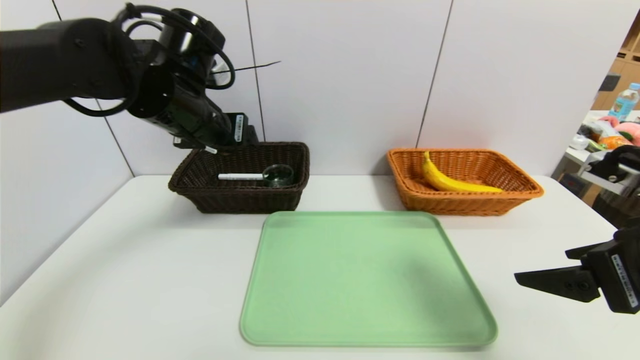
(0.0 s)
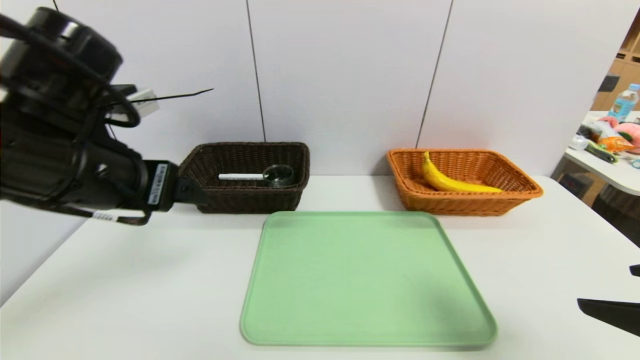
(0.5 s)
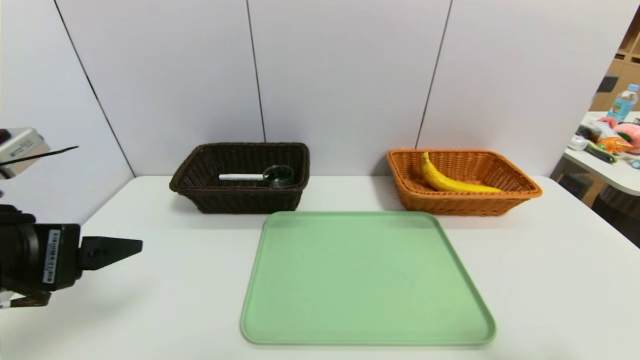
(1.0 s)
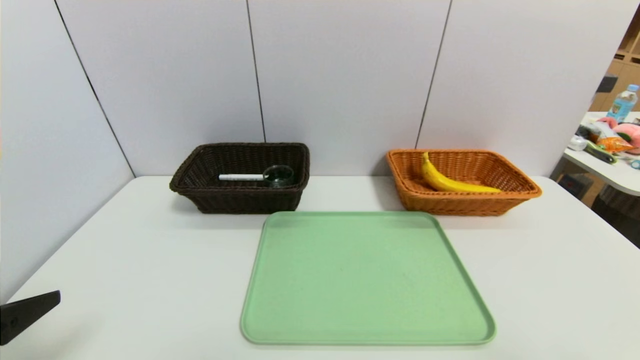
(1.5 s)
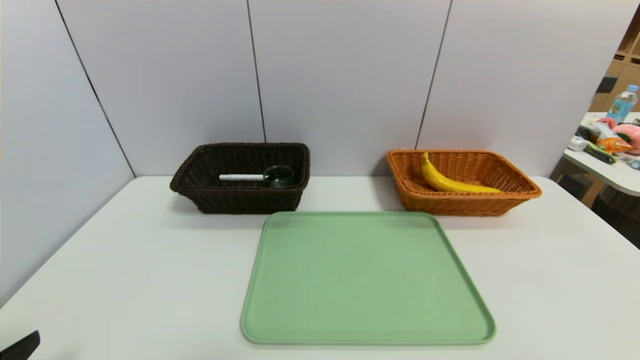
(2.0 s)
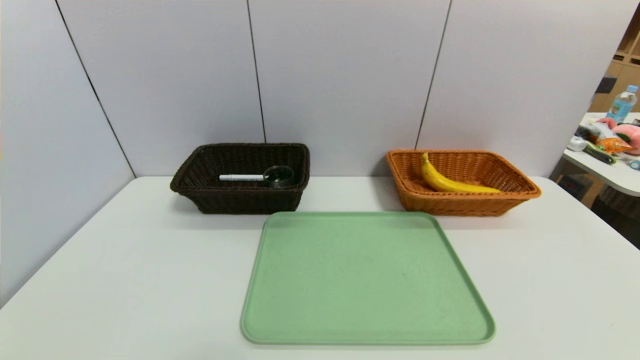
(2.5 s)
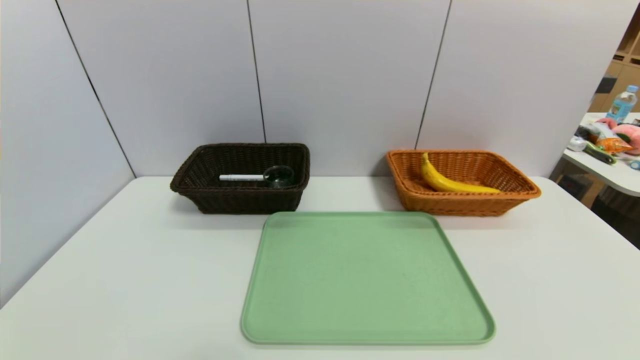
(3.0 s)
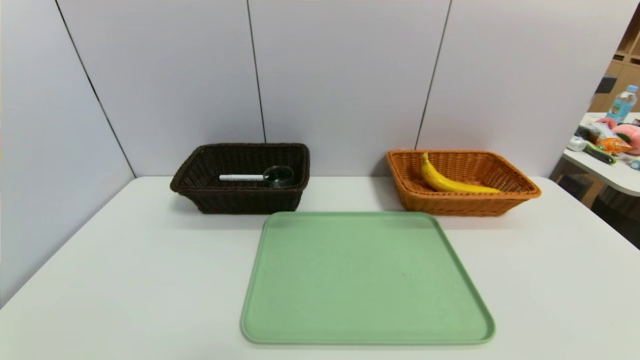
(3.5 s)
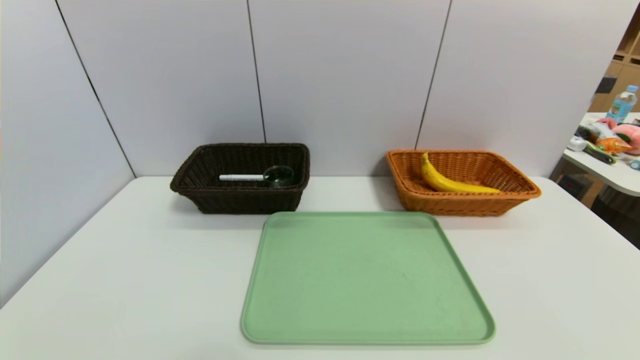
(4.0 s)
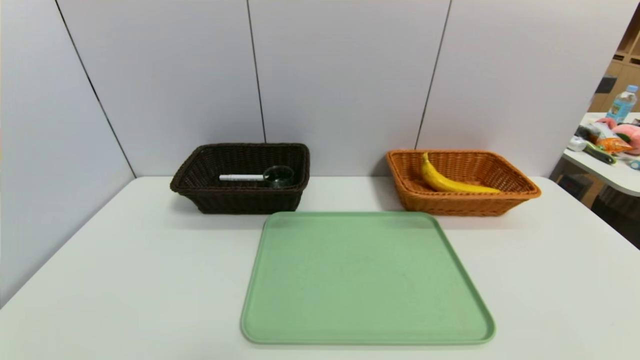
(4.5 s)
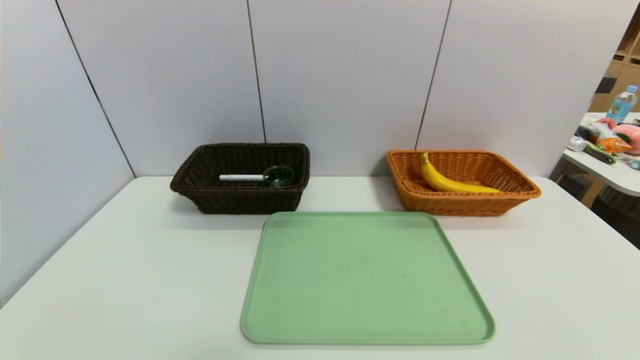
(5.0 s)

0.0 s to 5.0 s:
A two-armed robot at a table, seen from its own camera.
Task of the whole recording: place the food in the right basket with the right gripper, and place the non food items in the left basket with the left gripper.
0.0 to 2.5 s: The left gripper moves backward, downward and to the left, approximately 40 cm, while the right gripper moves backward, roughly 20 cm.

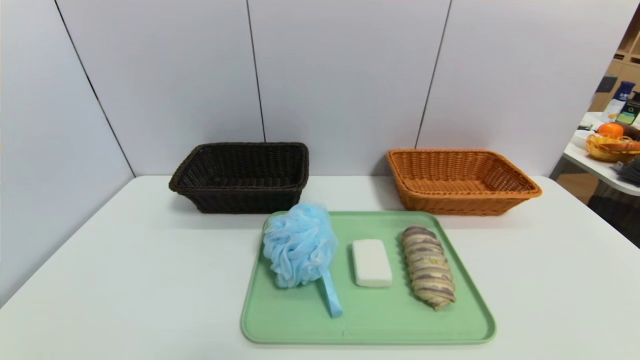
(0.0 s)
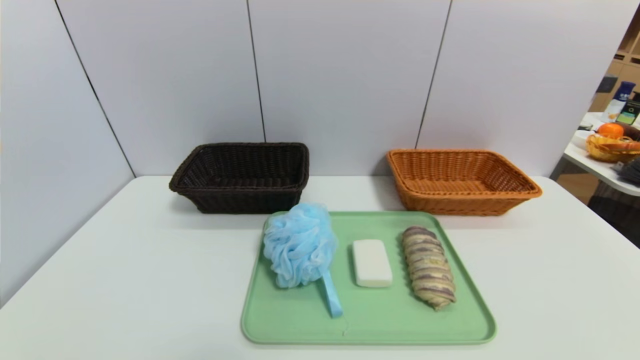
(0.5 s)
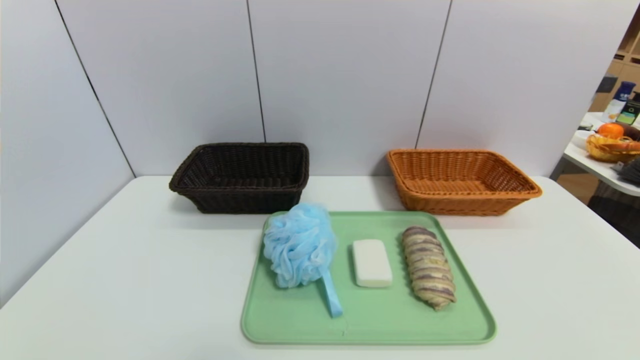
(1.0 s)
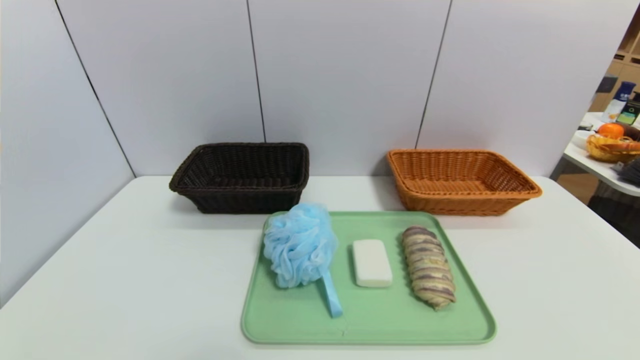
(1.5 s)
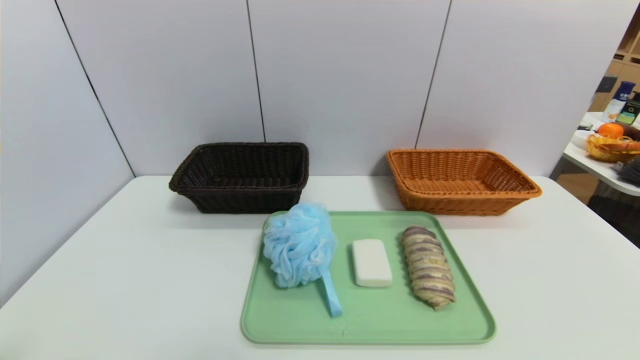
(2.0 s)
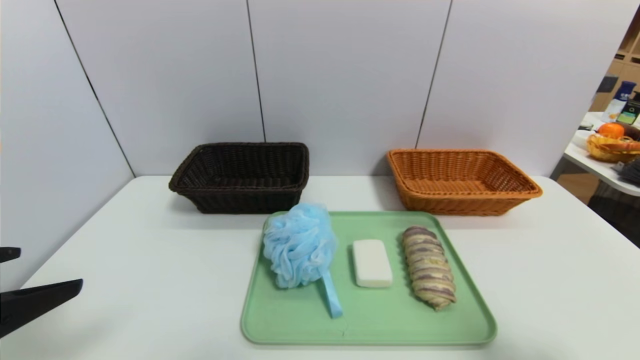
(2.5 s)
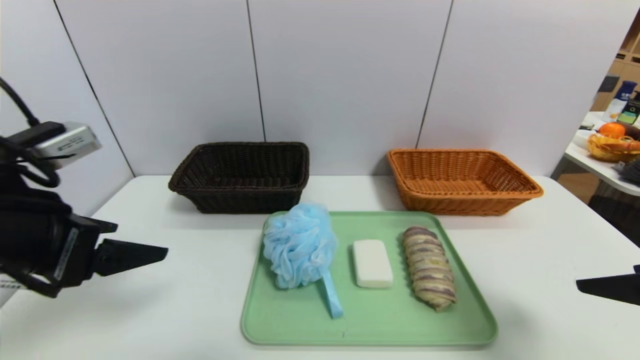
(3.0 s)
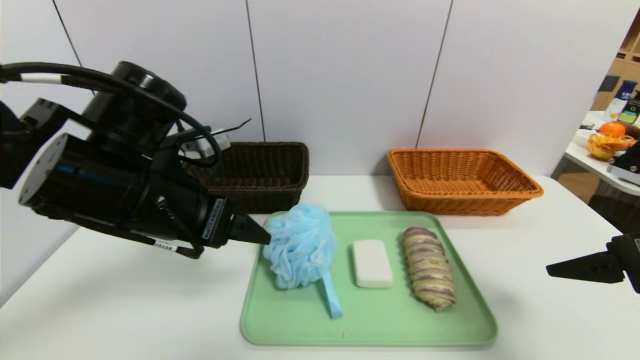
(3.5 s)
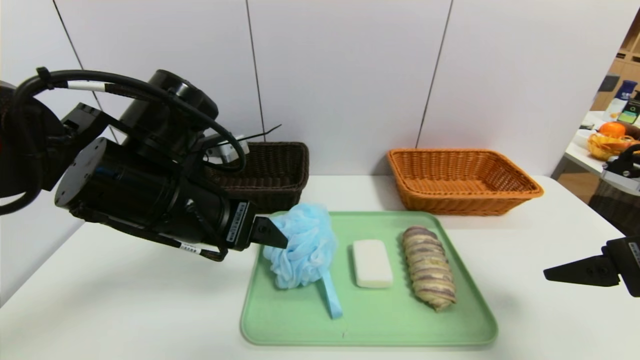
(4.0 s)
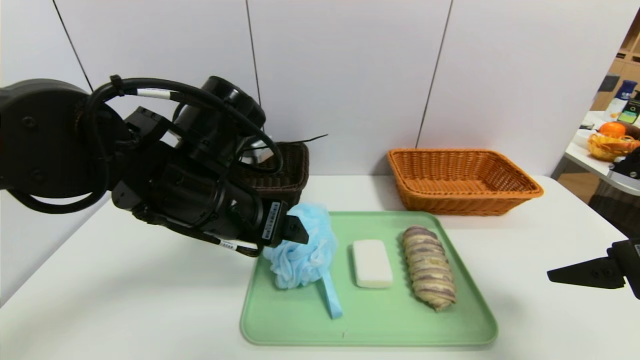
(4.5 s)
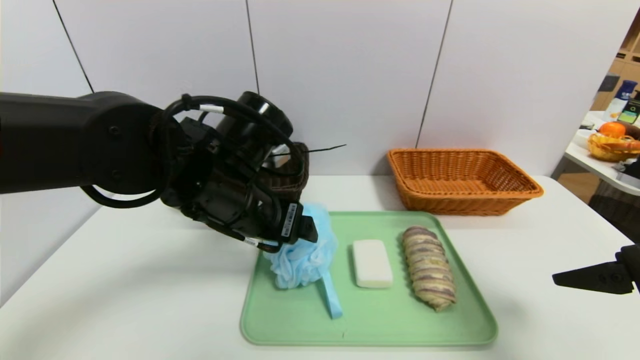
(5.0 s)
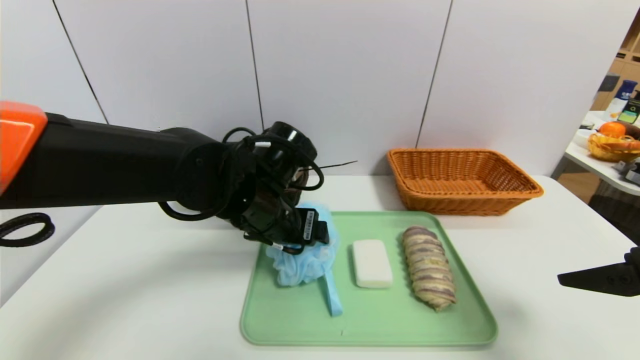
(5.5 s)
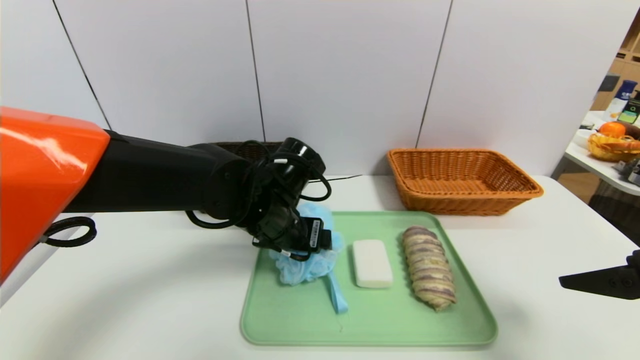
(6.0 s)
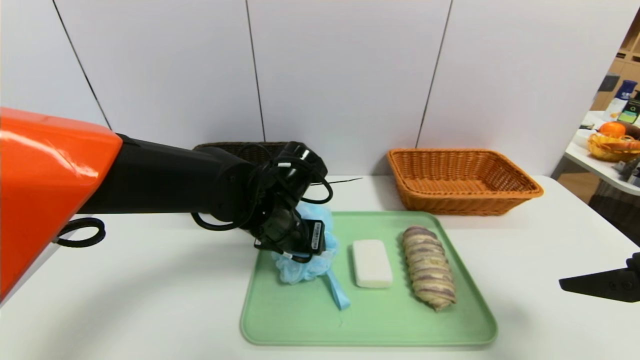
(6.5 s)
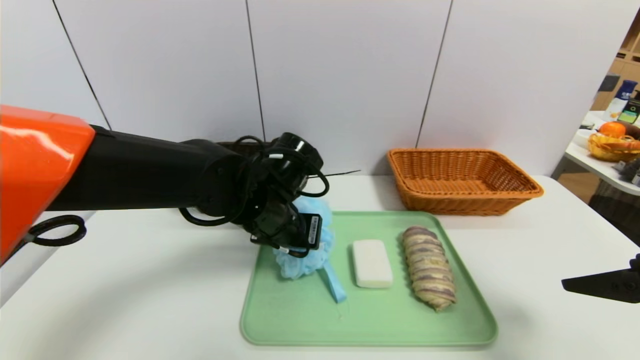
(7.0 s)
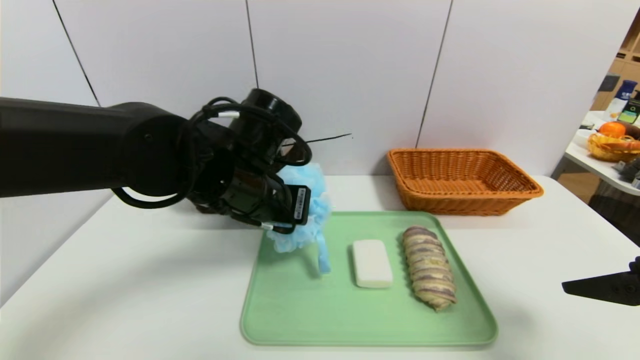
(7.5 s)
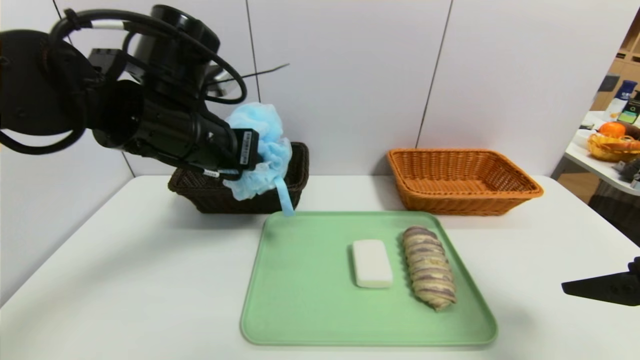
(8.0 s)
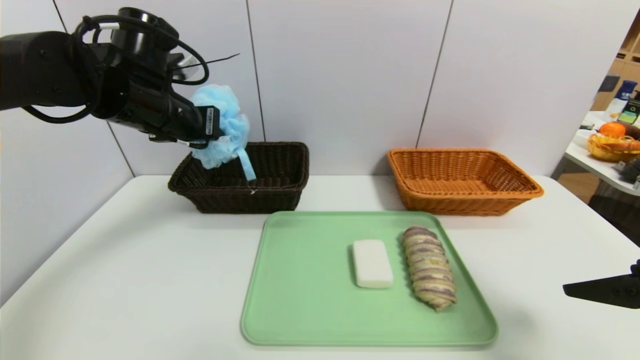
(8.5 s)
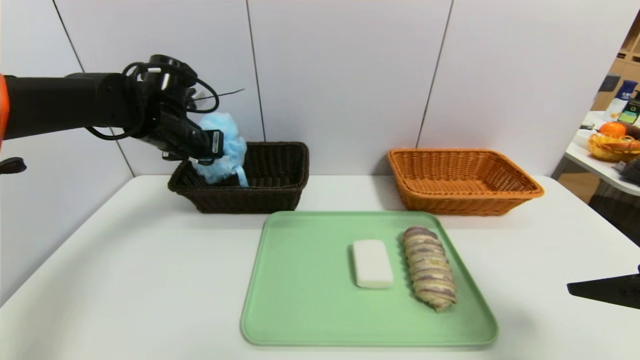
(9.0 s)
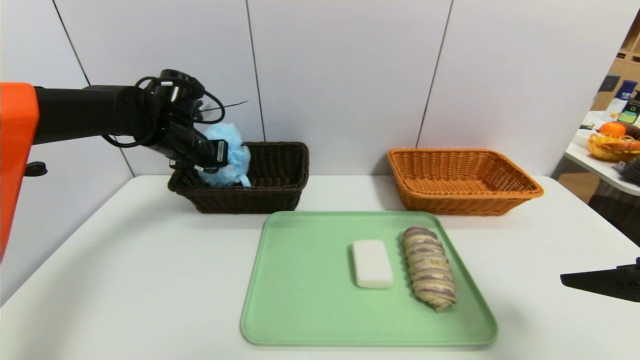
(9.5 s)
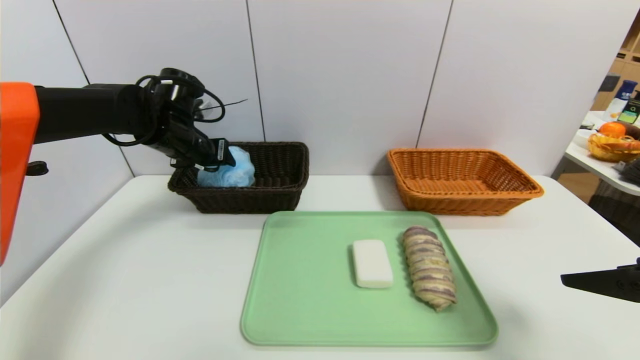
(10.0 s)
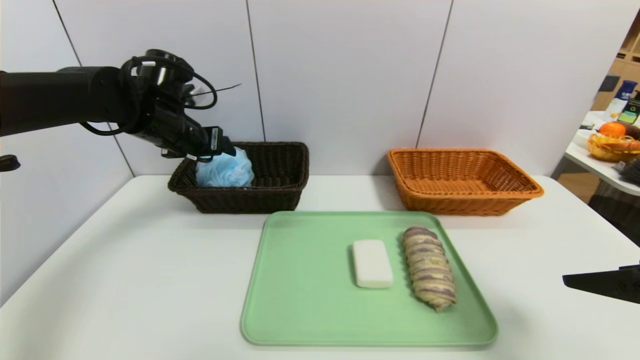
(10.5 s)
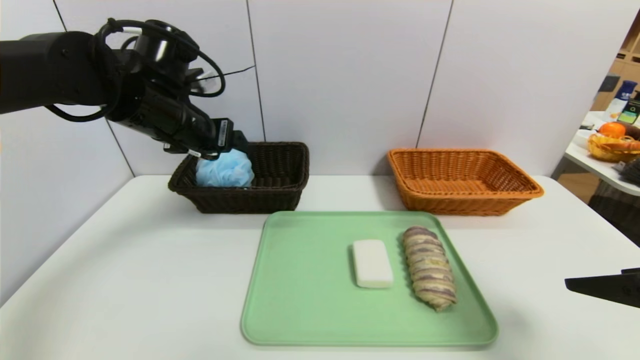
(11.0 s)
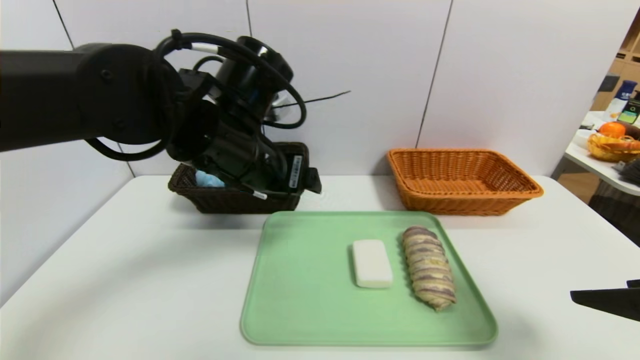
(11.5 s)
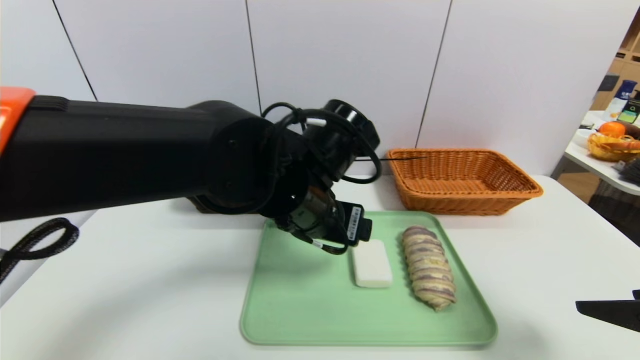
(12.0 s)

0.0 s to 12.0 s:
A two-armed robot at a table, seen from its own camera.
Task of the whole recording: place the food in the right basket with the right gripper, and place the non food items in the left basket with the left gripper.
Step, 0.0 to 10.5 s: Grasp the shower sphere and put it in the left basket.
2.0 to 4.0 s: The left gripper shifts roughly 30 cm forward and to the right; the right gripper moves forward, roughly 20 cm.
4.0 to 6.0 s: The left gripper travels to the right, downward and forward by about 15 cm.
6.0 to 8.0 s: The left gripper shifts roughly 15 cm upward and to the left, and closes up.
8.0 to 10.0 s: The left gripper goes roughly 15 cm forward, to the left and downward, and opens up.
10.0 to 12.0 s: The left gripper is displaced to the right and backward by about 25 cm, and opens.

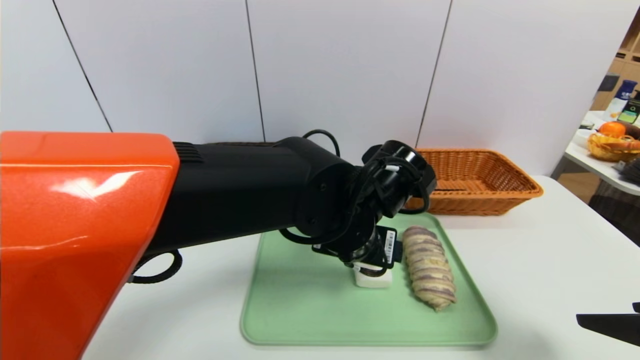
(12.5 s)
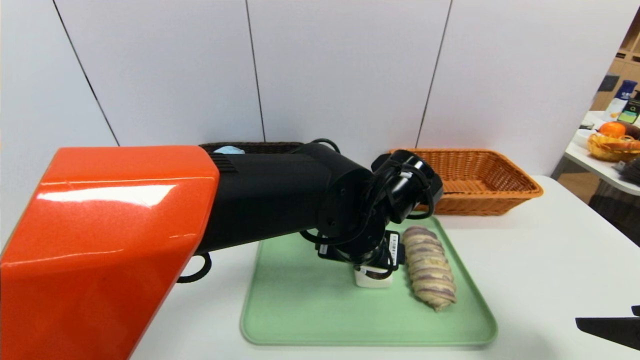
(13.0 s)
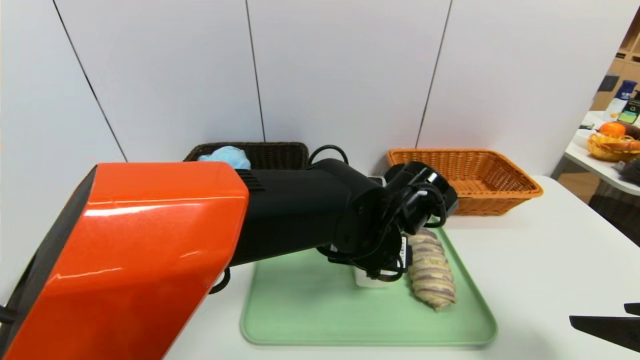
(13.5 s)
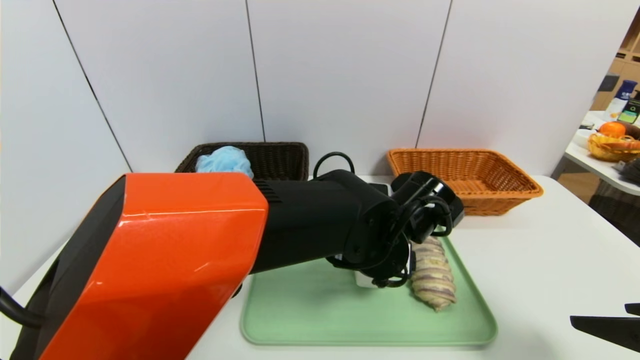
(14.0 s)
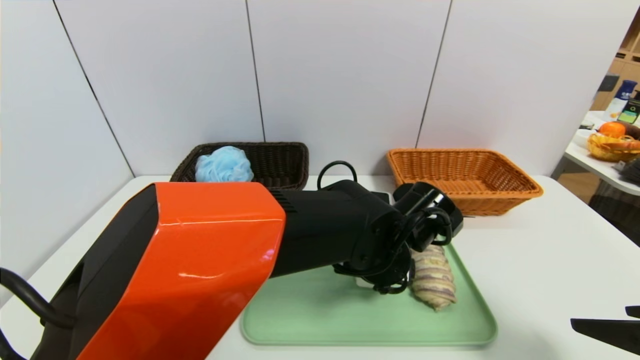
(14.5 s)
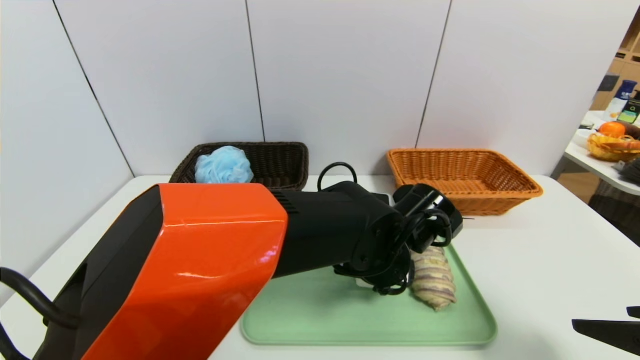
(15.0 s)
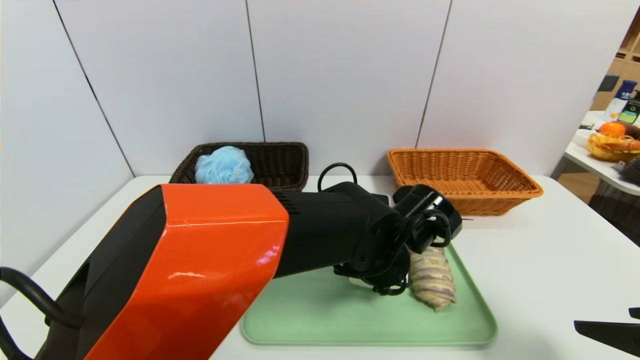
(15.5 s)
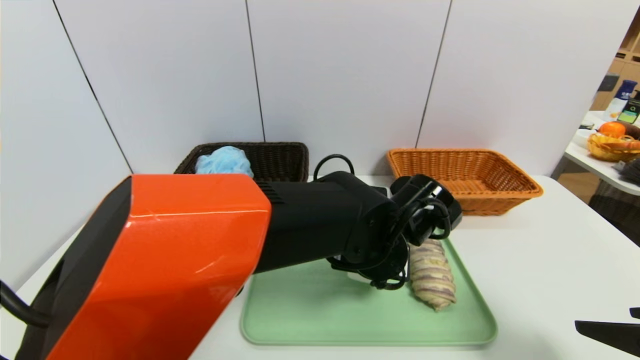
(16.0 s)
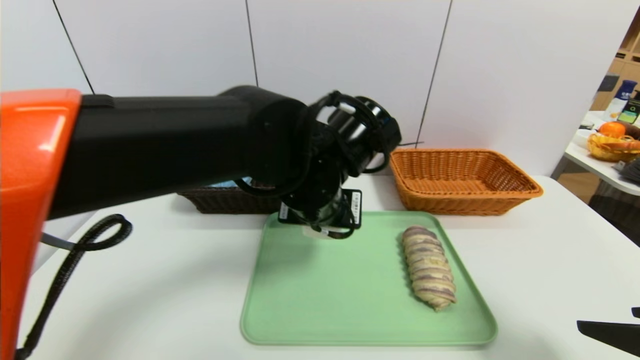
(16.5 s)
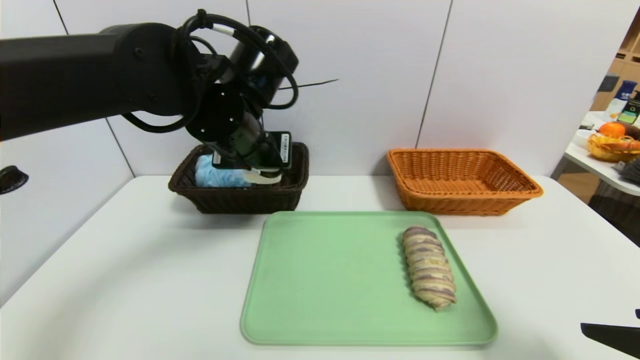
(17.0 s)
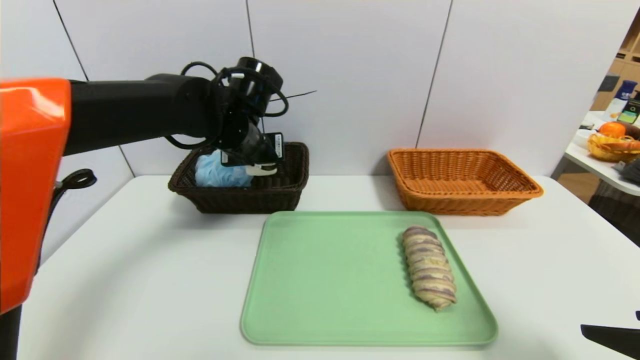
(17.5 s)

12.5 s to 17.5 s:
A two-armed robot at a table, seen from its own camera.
Task of the whole recording: place the food in the right basket with the right gripper, and place the non food items in the left basket with the left gripper.
12.5 to 15.0 s: The left gripper travels downward by approximately 5 cm.
15.0 to 17.5 s: The left gripper travels to the left, forward and upward by some 25 cm, and closes its fingers.
